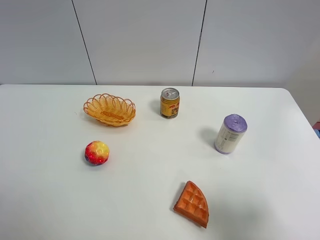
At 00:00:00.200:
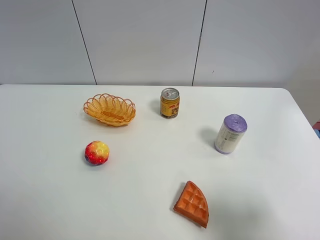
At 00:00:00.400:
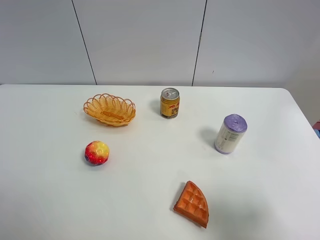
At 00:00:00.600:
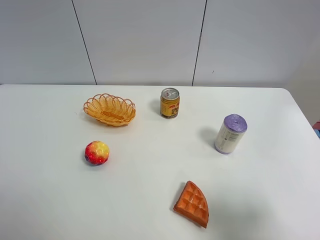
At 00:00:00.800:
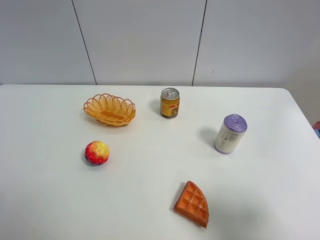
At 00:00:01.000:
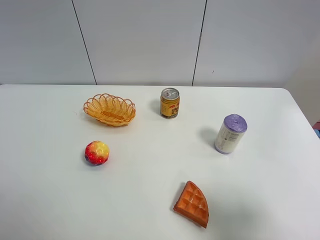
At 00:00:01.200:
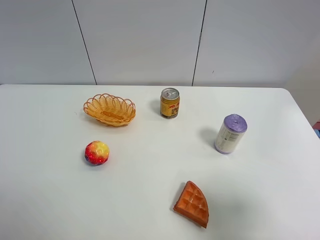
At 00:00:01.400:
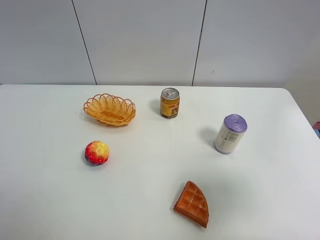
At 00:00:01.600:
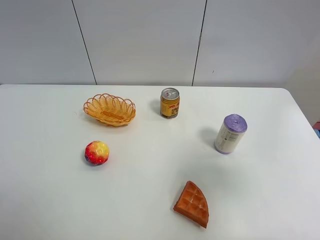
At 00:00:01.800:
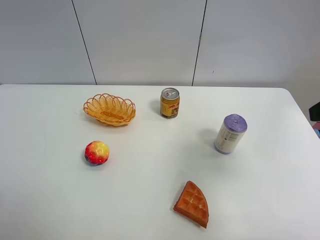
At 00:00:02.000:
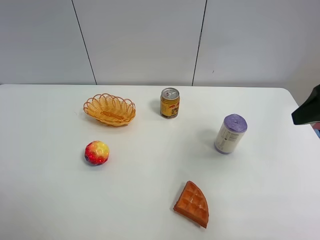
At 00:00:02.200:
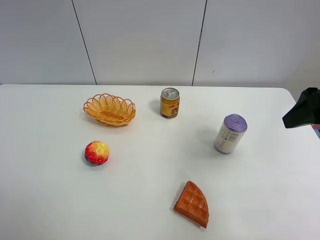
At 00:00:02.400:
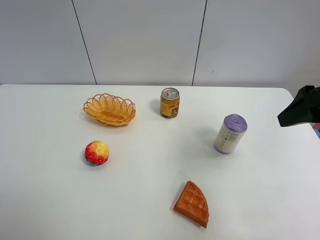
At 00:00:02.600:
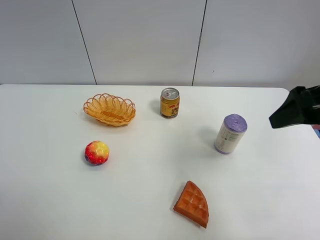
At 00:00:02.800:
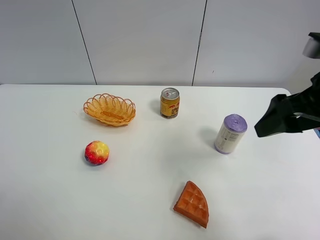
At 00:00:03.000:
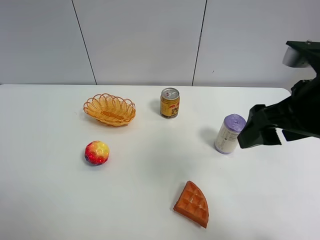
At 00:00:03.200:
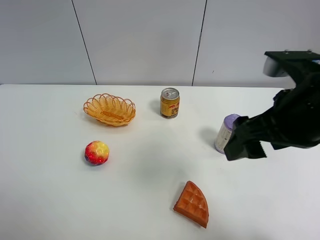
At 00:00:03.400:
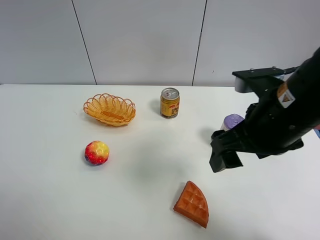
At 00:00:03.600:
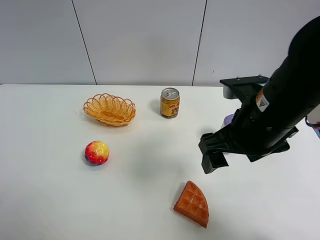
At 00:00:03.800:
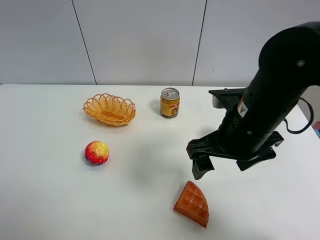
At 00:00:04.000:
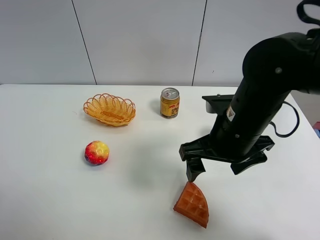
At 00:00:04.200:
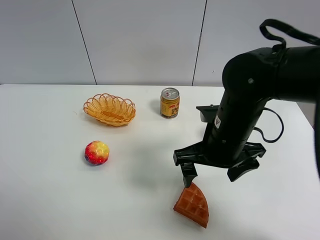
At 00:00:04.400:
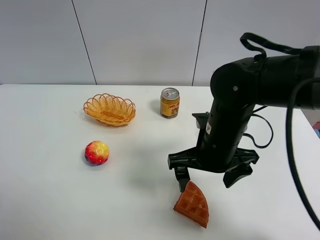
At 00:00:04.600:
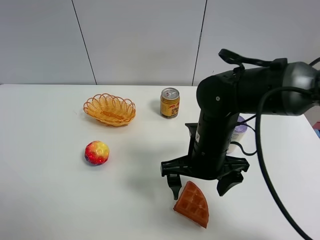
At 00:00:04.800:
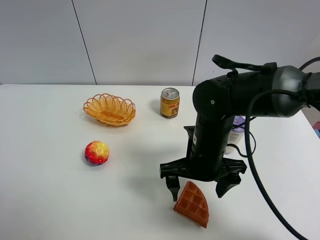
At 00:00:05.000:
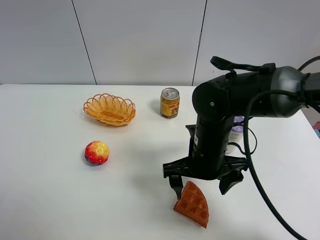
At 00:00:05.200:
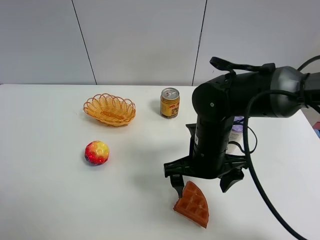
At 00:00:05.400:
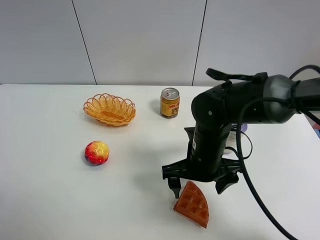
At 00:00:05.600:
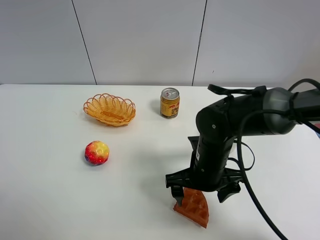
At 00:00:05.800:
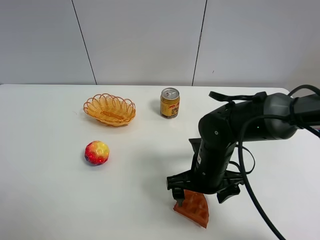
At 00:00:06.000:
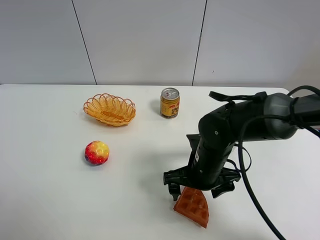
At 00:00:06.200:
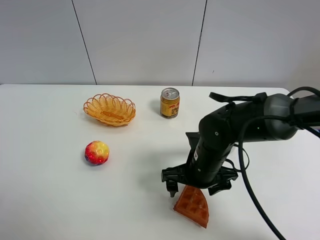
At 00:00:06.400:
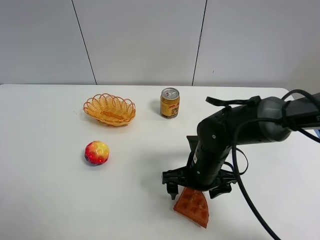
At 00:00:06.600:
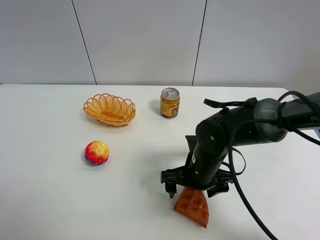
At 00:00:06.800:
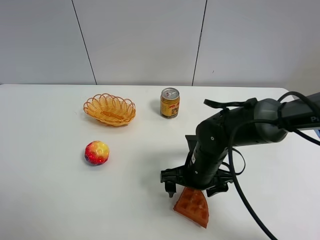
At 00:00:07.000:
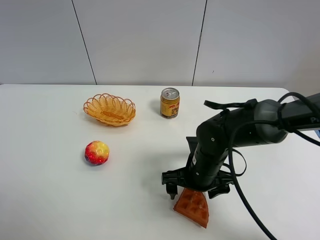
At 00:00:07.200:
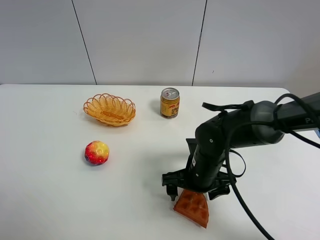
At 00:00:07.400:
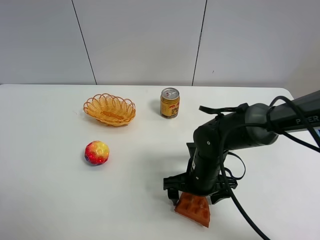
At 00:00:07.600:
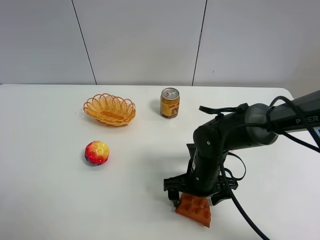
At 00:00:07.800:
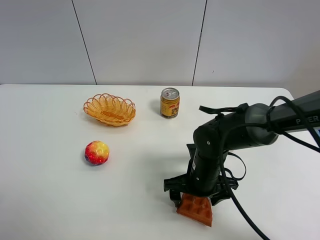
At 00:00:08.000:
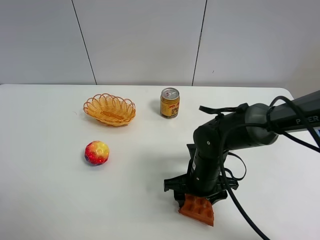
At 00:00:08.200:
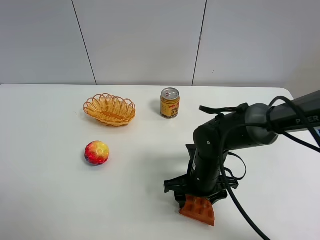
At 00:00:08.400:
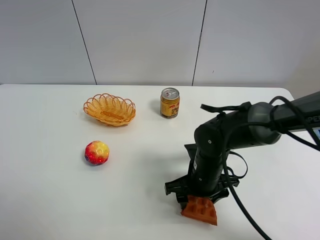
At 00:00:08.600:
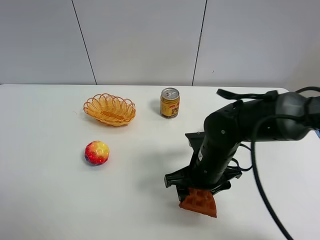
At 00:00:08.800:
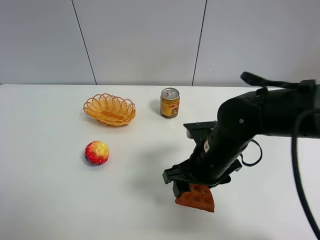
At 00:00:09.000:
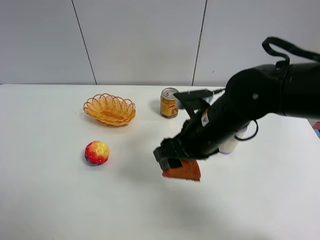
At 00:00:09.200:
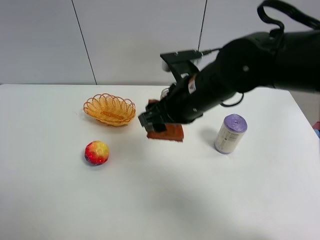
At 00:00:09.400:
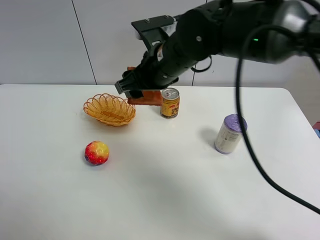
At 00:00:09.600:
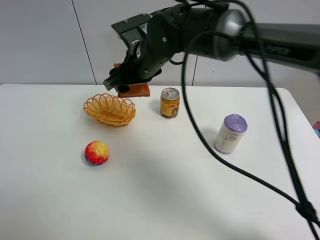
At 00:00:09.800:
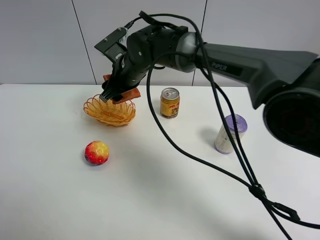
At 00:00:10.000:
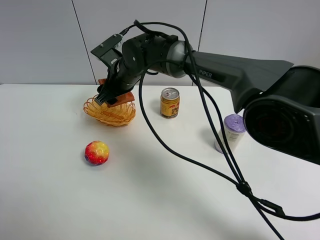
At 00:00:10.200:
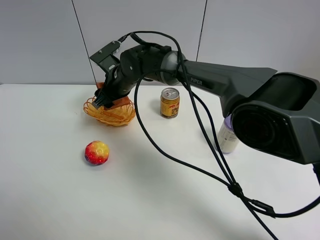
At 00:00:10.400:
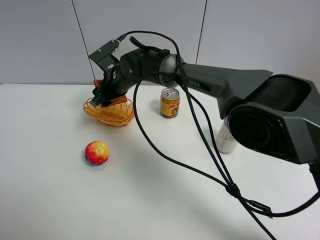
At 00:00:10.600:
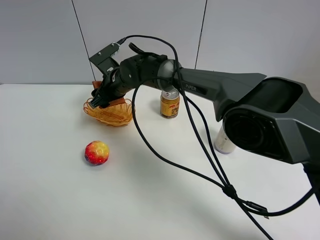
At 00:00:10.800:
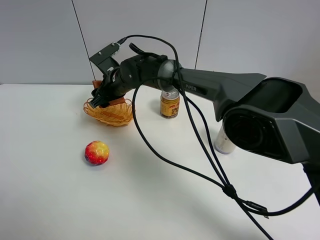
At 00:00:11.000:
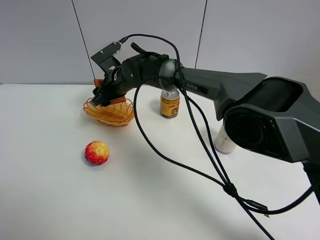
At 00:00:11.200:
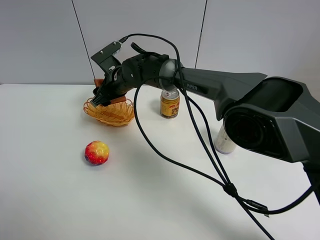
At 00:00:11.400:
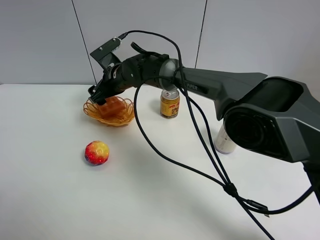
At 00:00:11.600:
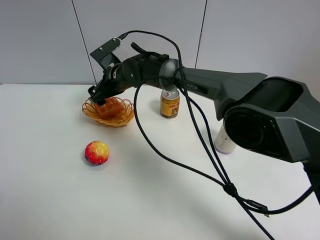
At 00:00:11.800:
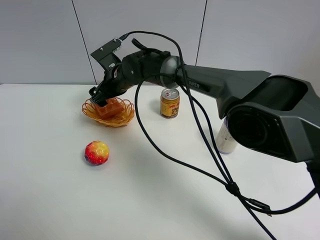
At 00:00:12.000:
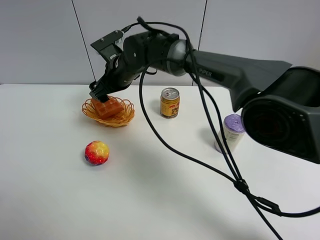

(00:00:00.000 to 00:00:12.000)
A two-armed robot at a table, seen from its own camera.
Task of the whole recording: Put the bakery in the basket.
Step, 00:00:00.000 - 00:00:08.000: Grasp the bread with right gripper.
00:00:00.000 - 00:00:01.600: The right gripper goes some 15 cm upward and forward.
00:00:01.600 - 00:00:03.000: The right gripper shifts approximately 10 cm to the left and forward.
00:00:03.000 - 00:00:04.400: The right gripper goes some 15 cm downward and to the left.
00:00:04.400 - 00:00:06.000: The right gripper travels downward by about 5 cm.
00:00:06.000 - 00:00:07.600: There are only small adjustments of the grippers.
00:00:07.600 - 00:00:09.000: The right gripper heads upward, covering about 15 cm, and closes its fingers.
00:00:09.000 - 00:00:10.400: The right gripper moves forward and to the left, about 25 cm.
00:00:10.400 - 00:00:12.000: The right gripper opens up.

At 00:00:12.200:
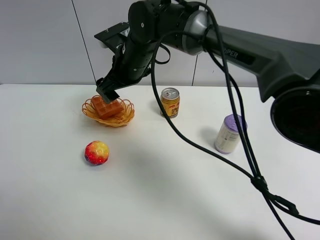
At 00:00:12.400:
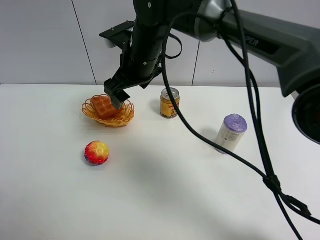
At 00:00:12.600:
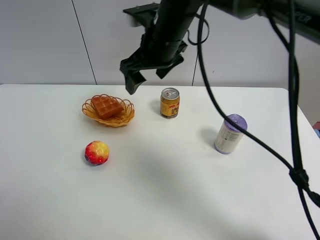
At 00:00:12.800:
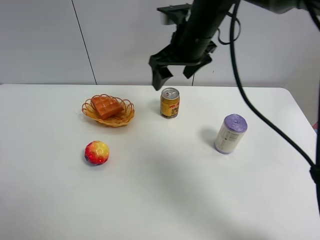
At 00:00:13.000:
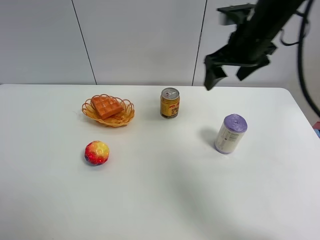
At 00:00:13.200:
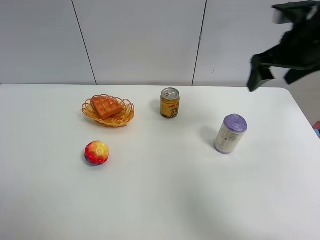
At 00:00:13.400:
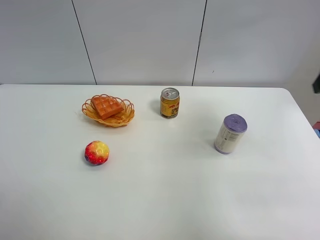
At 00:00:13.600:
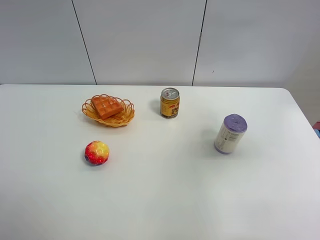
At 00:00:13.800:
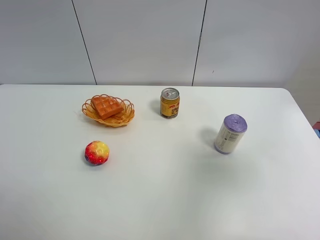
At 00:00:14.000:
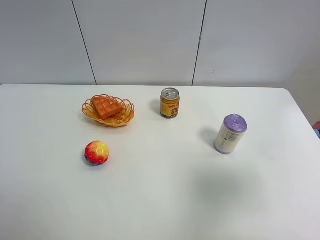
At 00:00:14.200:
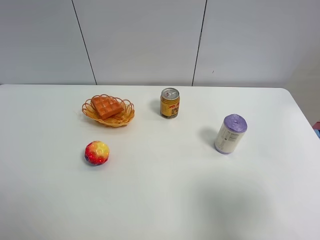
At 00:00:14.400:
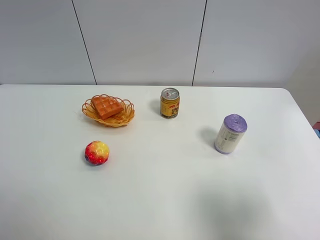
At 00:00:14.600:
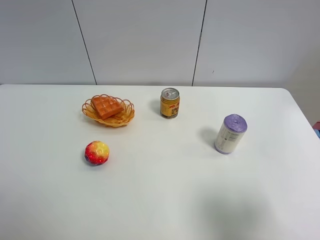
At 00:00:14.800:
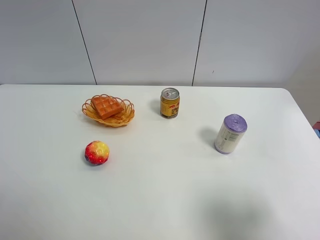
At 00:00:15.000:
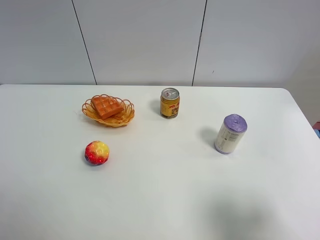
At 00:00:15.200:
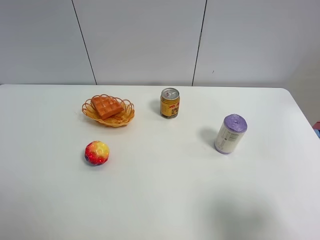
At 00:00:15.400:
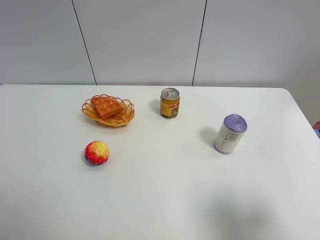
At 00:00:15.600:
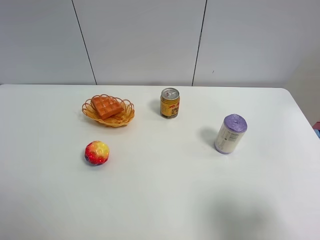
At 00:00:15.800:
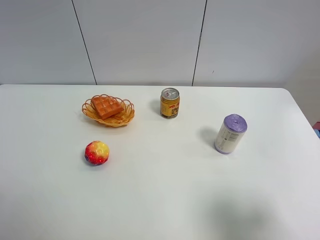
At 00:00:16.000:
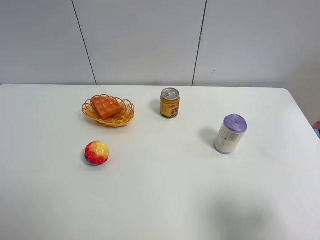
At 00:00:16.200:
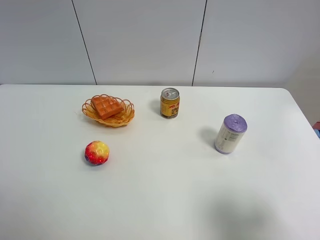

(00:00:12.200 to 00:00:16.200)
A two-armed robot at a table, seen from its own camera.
Task of the whole recording: Put the bakery in the basket.
00:00:12.200 - 00:00:13.600: The right gripper heads to the right and backward, covering roughly 40 cm.
00:00:13.600 - 00:00:14.800: The right gripper goes approximately 20 cm backward and downward.
